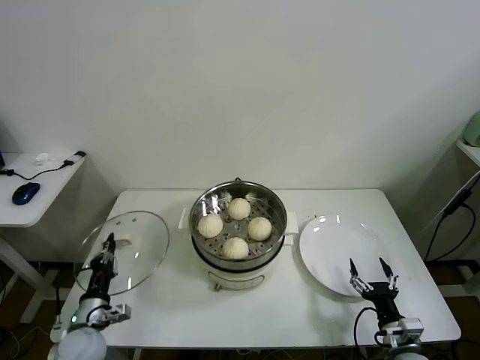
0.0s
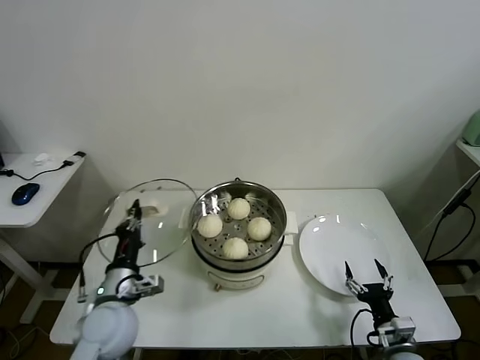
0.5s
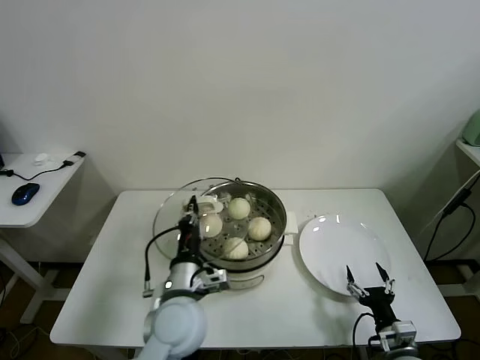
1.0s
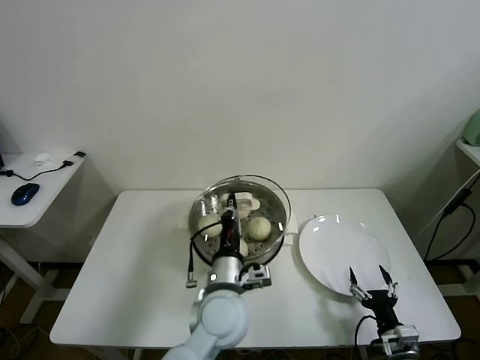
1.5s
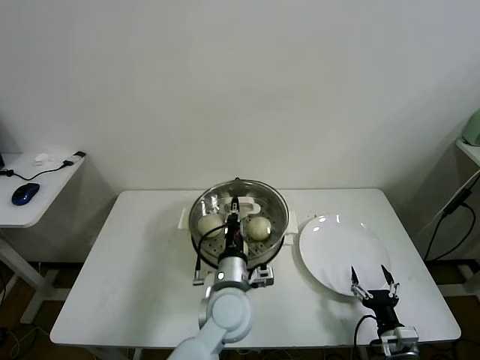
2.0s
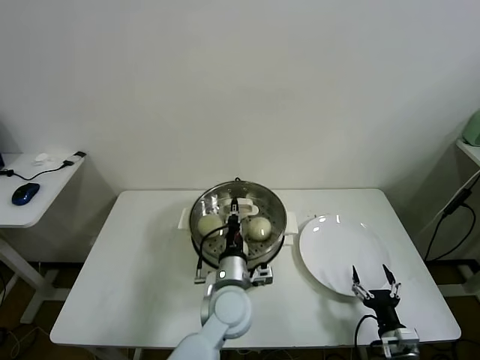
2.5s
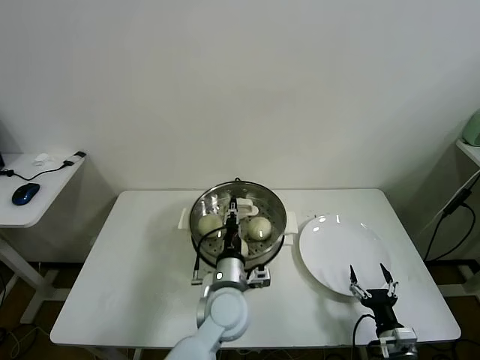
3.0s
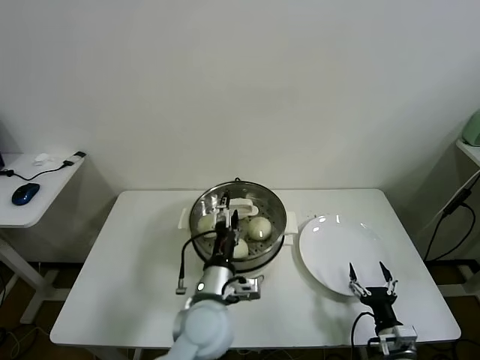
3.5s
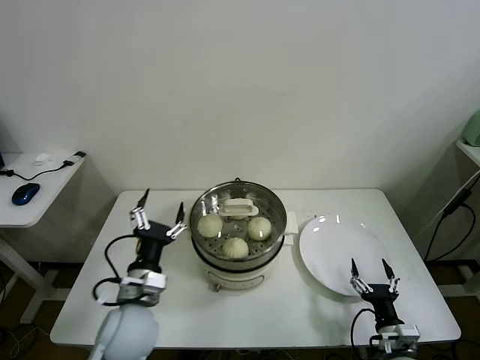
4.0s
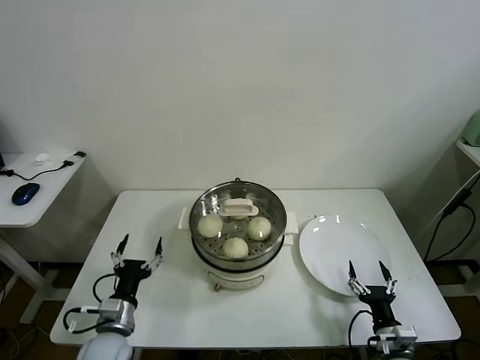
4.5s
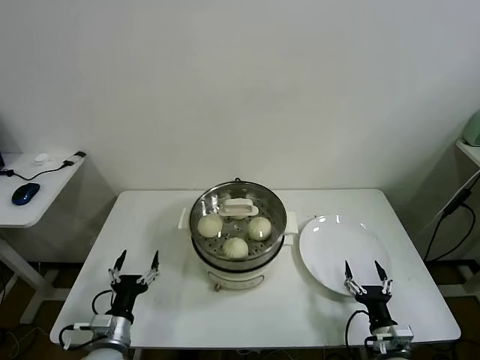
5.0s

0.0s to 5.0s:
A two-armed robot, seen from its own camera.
Task of the whole recording: take steamed baozi put them in steamer.
Step, 0.0s to 3.0s: Place the pot lid on the steamer with left gripper.
0.0s to 2.5s: The left gripper moves to the right, roughly 35 cm.
2.5s to 5.0s: The left gripper is displaced to the left by roughly 25 cm, and opens up.

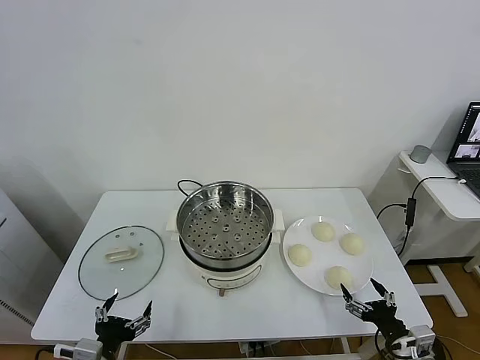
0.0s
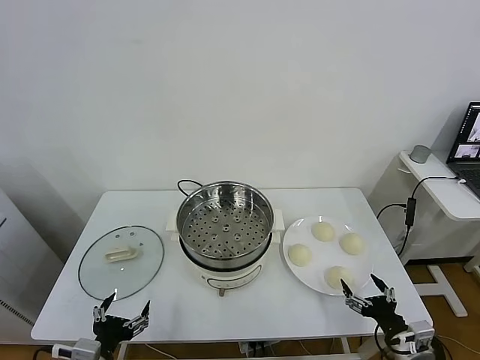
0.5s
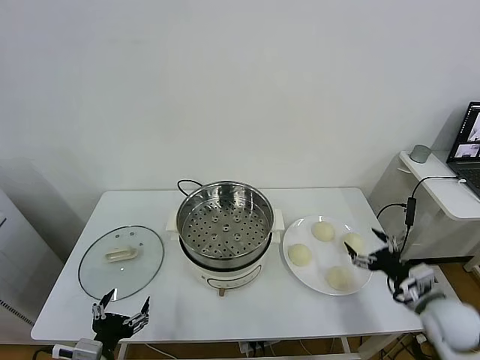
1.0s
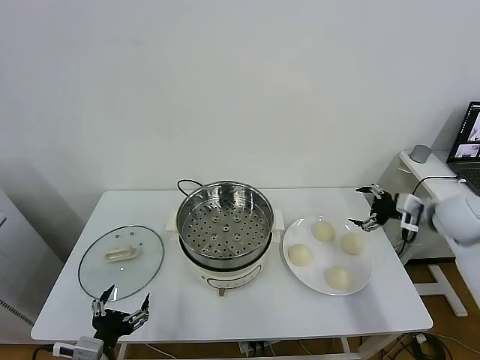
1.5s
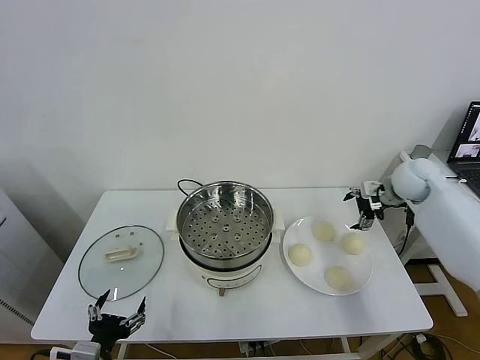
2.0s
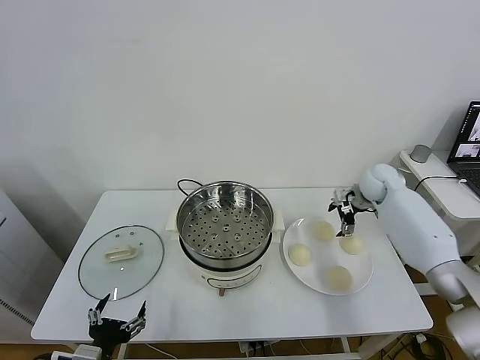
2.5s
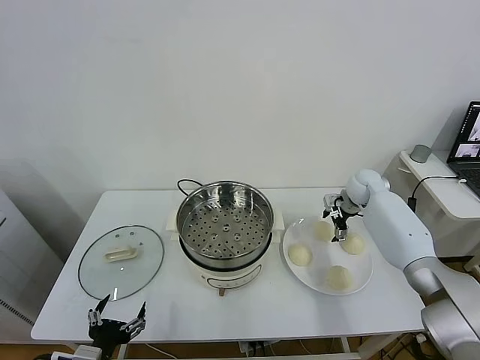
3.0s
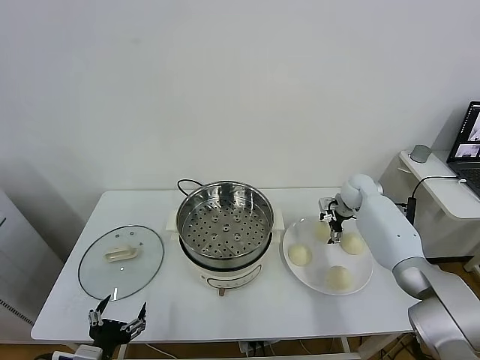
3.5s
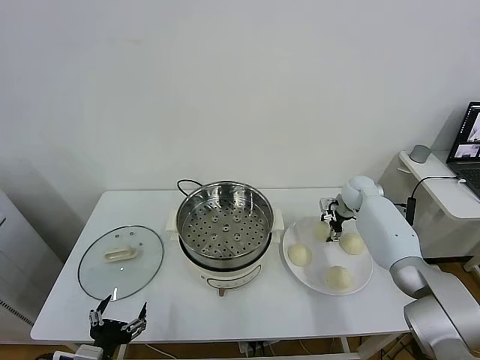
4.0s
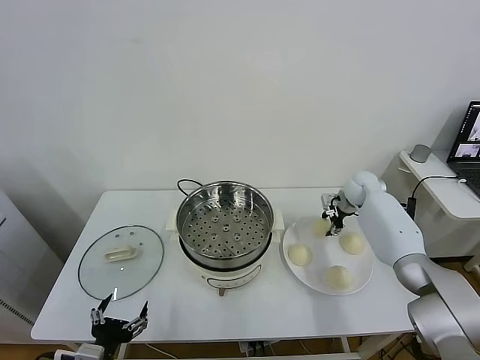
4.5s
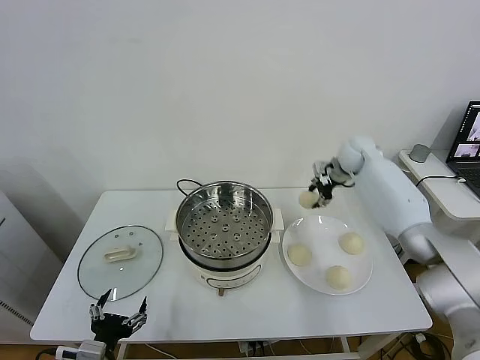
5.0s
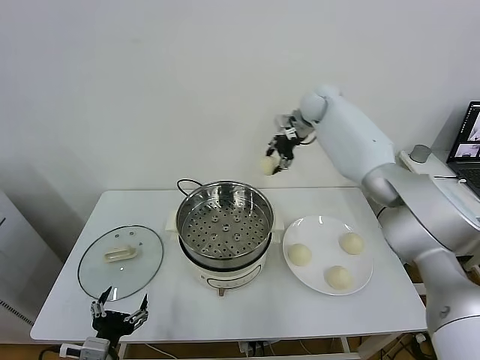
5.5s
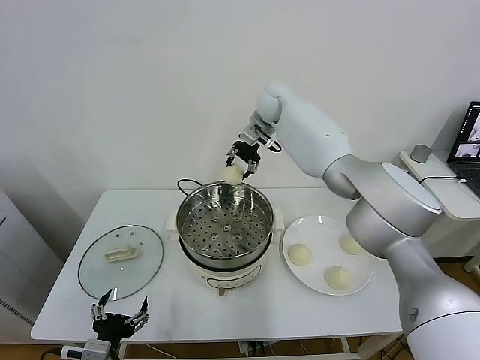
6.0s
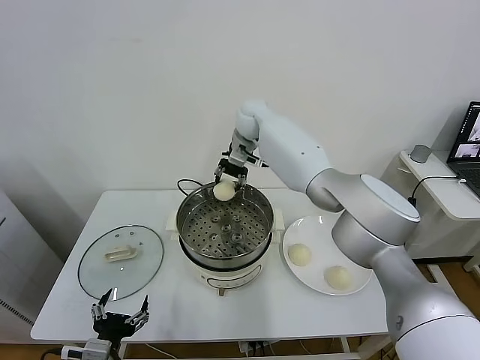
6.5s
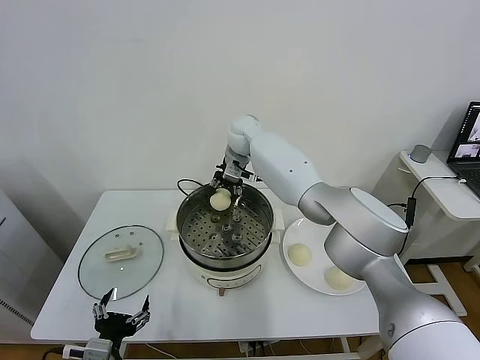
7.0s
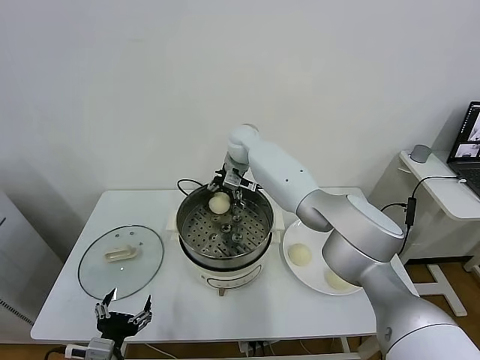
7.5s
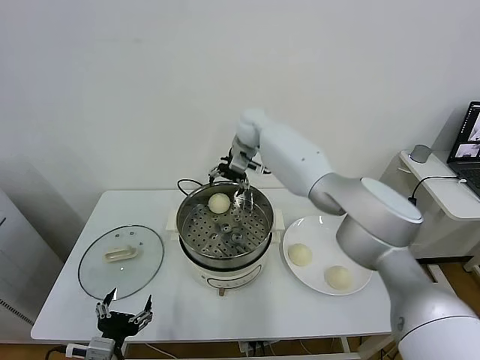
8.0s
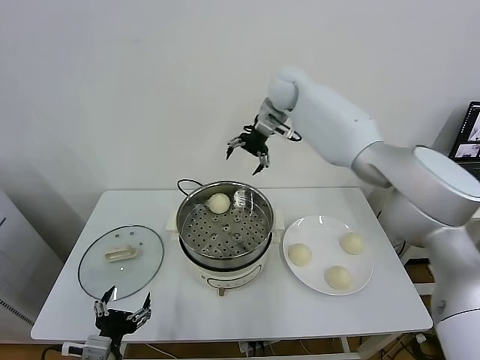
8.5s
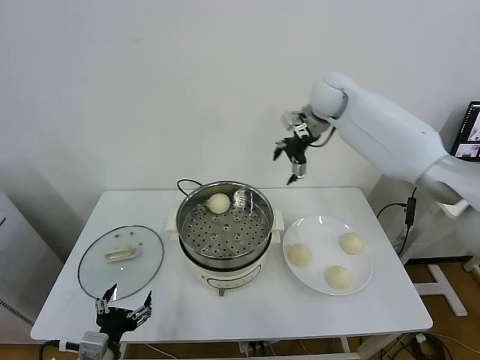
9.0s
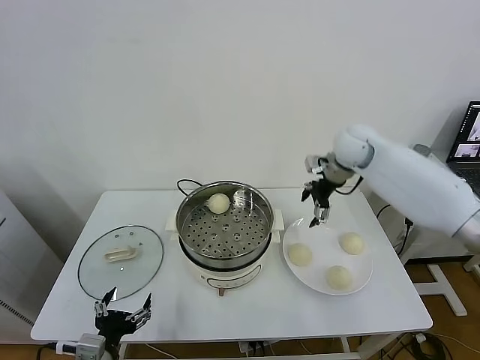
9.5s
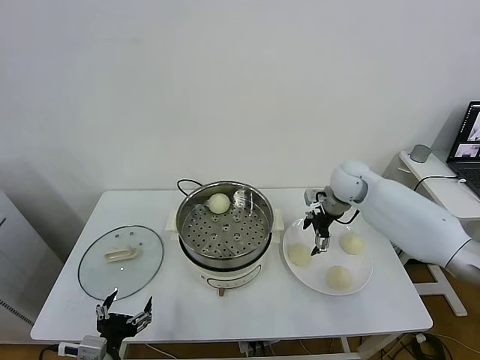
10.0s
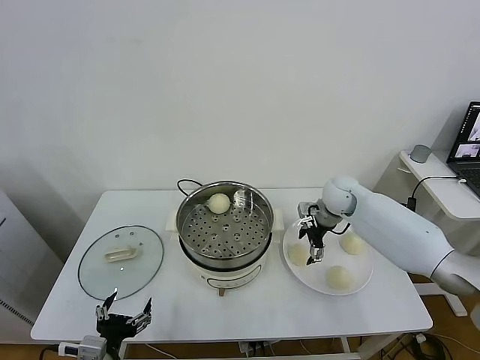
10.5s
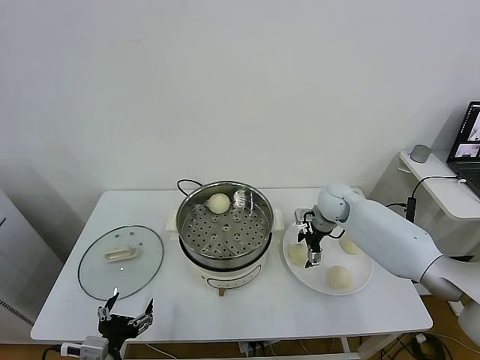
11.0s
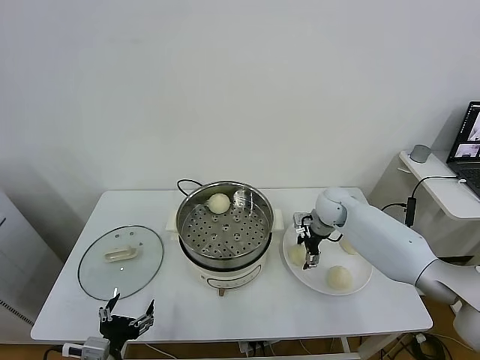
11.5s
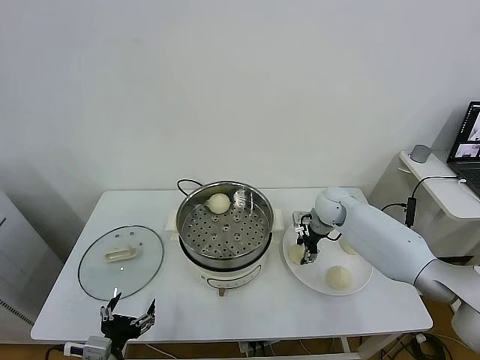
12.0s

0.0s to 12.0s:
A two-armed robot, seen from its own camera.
Task of the whole recording: take steamed baozi put them in steamer.
Step, 0.0s to 4.0s: Grasp the baozi in the plate with right gripper.
Step, 4.5s to 8.0s: Place the baozi on the steamer with right gripper.
Step, 8.5s to 12.0s: Grasp the baozi in the plate with right gripper.
2.0s to 4.0s: The right gripper shifts roughly 15 cm downward, forward and to the left.
4.0s to 6.0s: The right gripper goes approximately 35 cm to the left and upward.
6.0s to 8.0s: The right gripper goes downward and returns, about 10 cm each way, and opens.
8.0s to 10.0s: The right gripper goes some 30 cm to the right, downward and backward.
10.0s to 12.0s: The right gripper goes approximately 10 cm downward, and closes.

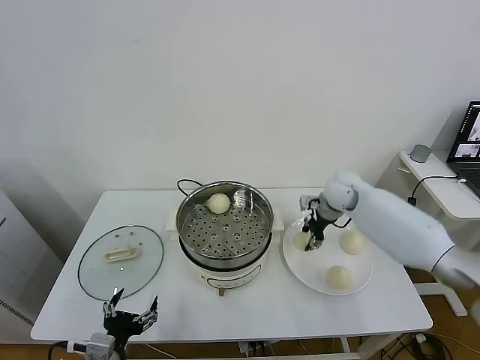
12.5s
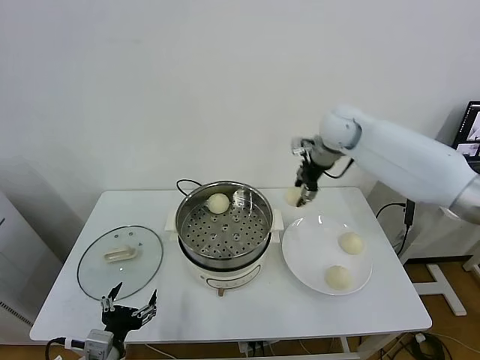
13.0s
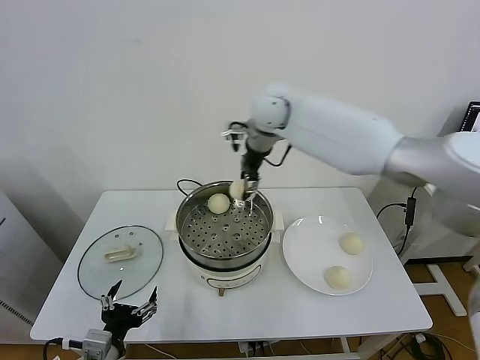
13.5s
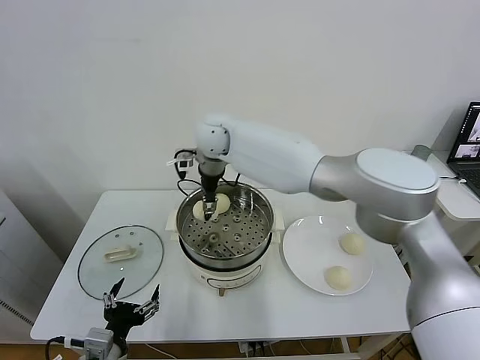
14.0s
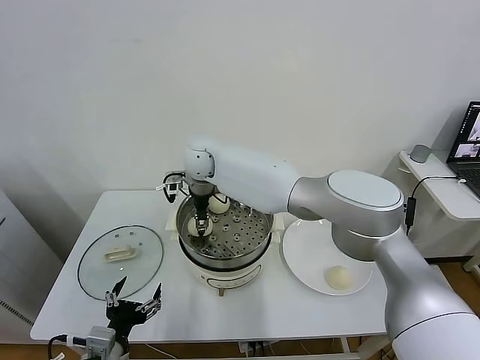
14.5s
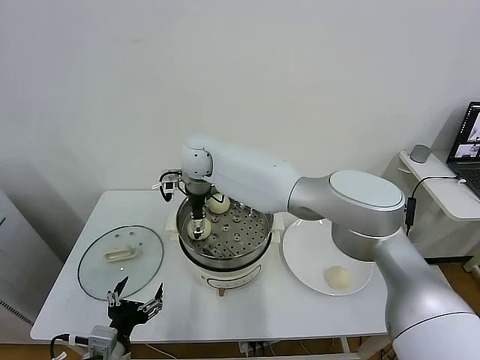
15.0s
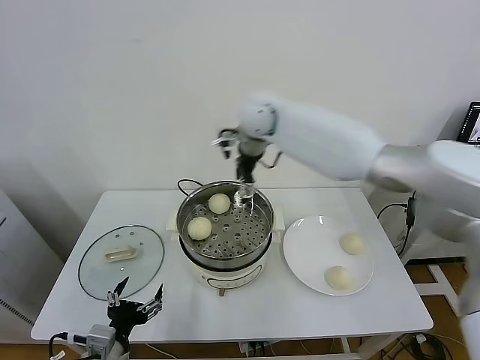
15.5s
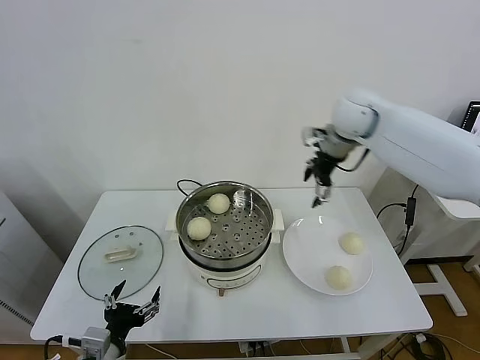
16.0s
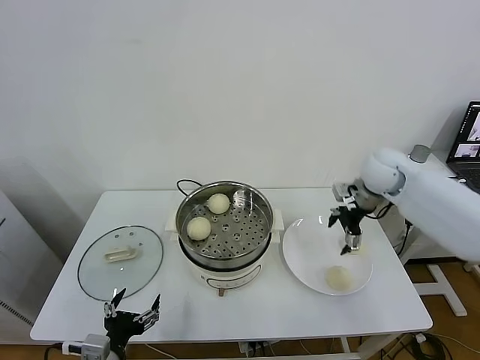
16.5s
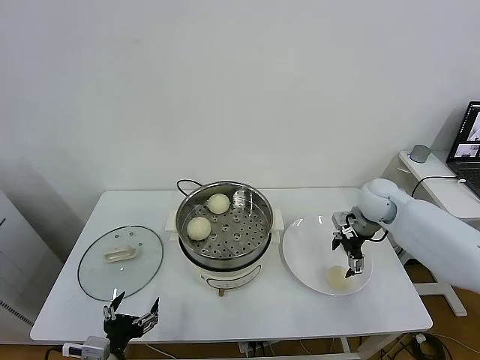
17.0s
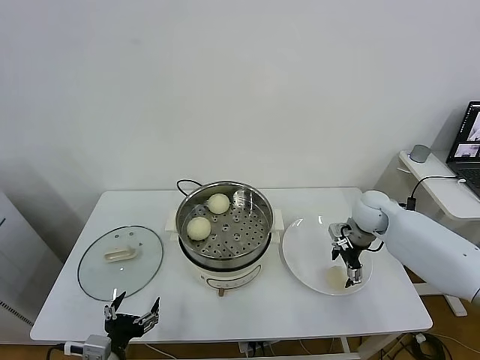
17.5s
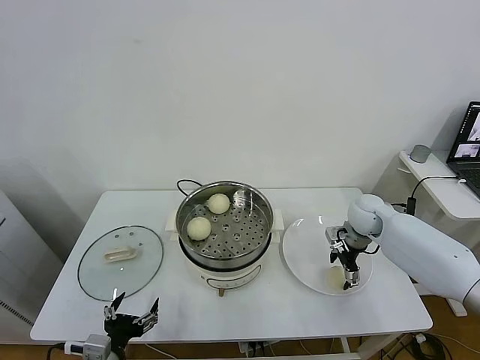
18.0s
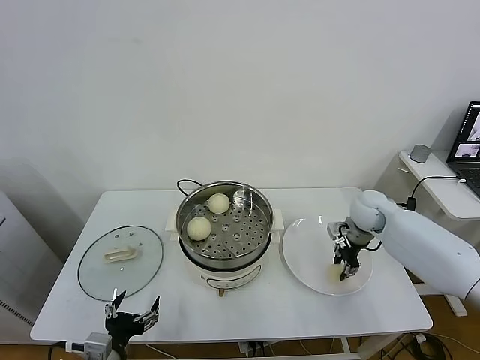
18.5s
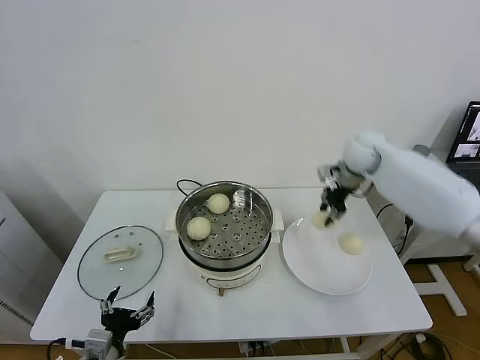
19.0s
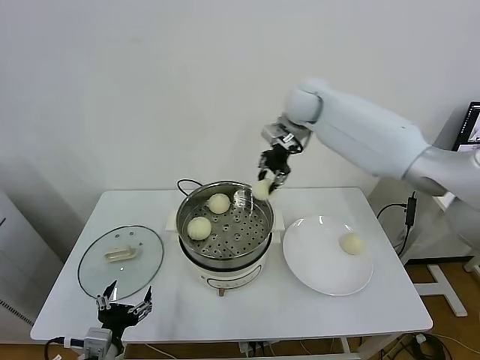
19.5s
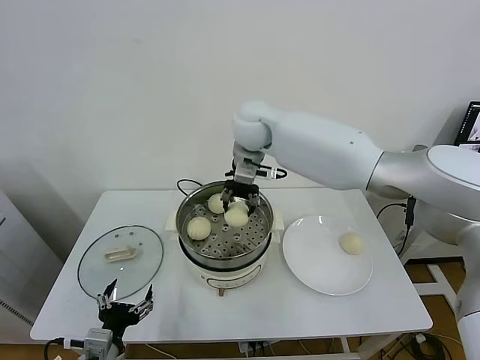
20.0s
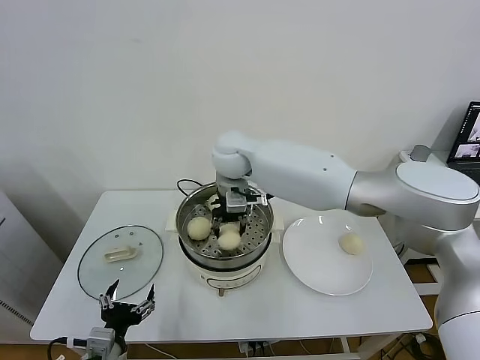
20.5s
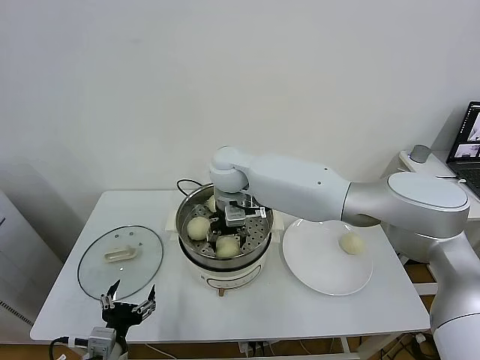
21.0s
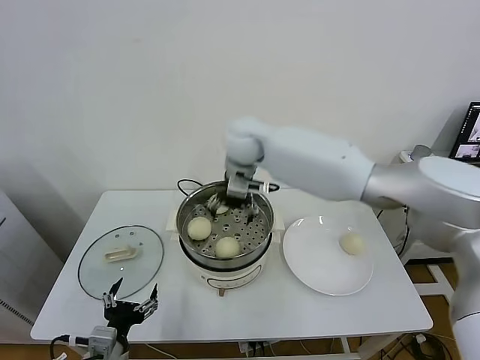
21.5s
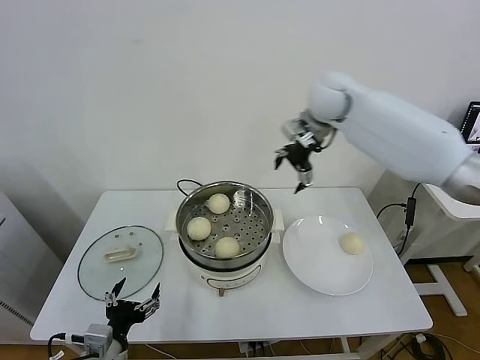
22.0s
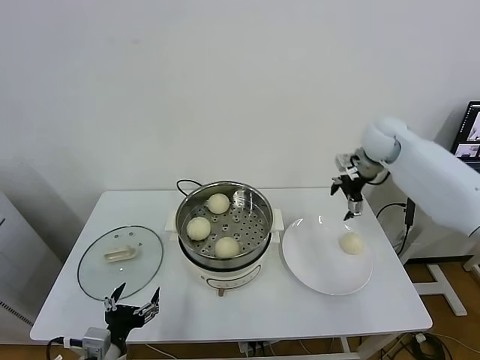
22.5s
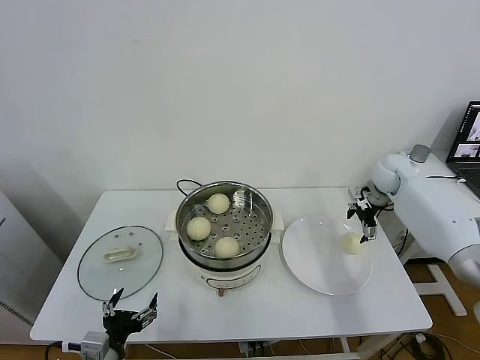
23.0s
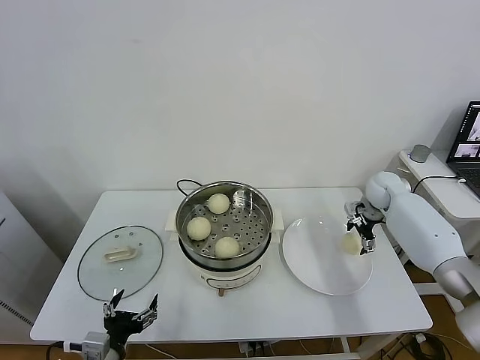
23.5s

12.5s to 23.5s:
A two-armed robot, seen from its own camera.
Task of the whole recording: take steamed baozi put them in steamer.
Step, 12.5s to 15.0s: Place the baozi on the steamer with right gripper.
Step, 15.5s to 18.5s: Grasp the baozi in the plate with right gripper.
Step, 19.0s to 21.0s: Place the baozi on the steamer with right gripper.
12.5s to 14.5s: The right gripper goes some 35 cm to the left.
14.5s to 16.0s: The right gripper goes roughly 35 cm to the right, and opens up.
16.0s to 18.0s: The right gripper goes approximately 25 cm downward.
18.0s to 20.0s: The right gripper heads to the left and upward, covering about 35 cm, and closes up.
20.0s to 21.5s: The right gripper reaches roughly 10 cm downward, then returns, and opens its fingers.
21.5s to 23.5s: The right gripper moves to the right and downward, roughly 40 cm.
